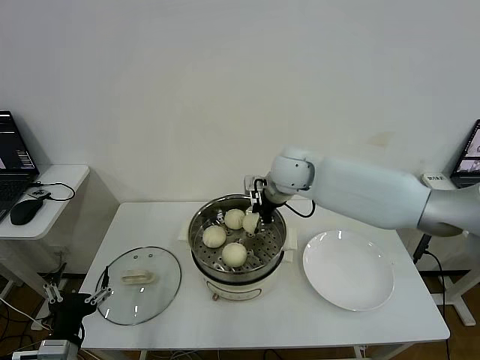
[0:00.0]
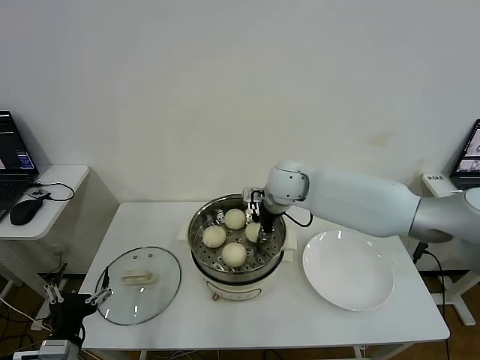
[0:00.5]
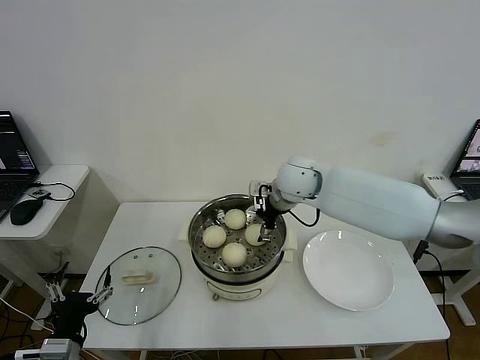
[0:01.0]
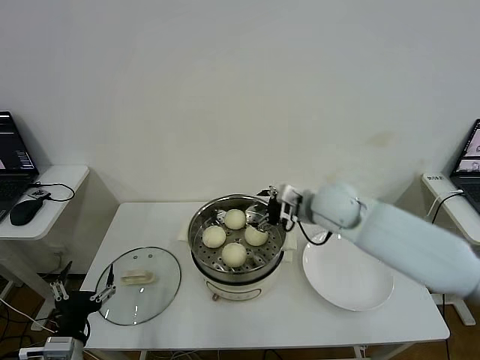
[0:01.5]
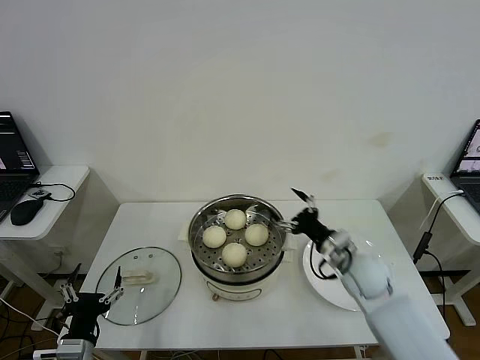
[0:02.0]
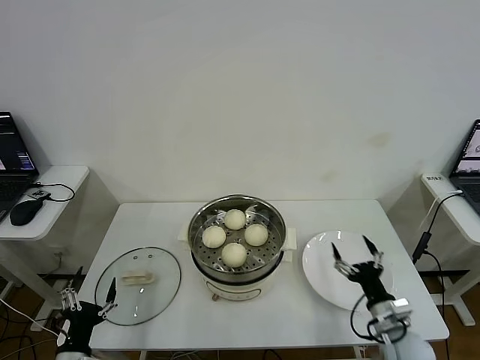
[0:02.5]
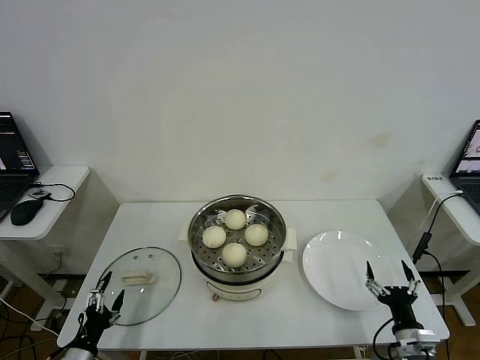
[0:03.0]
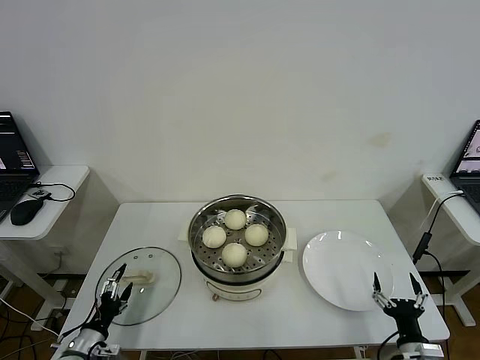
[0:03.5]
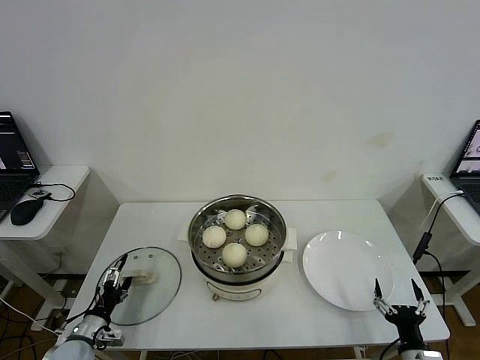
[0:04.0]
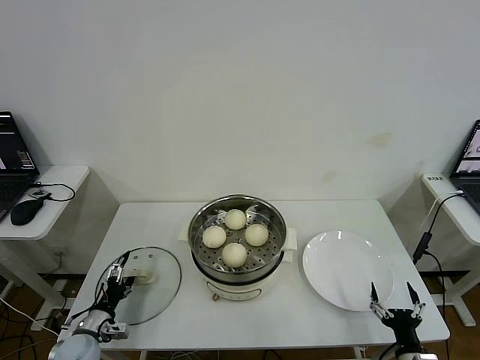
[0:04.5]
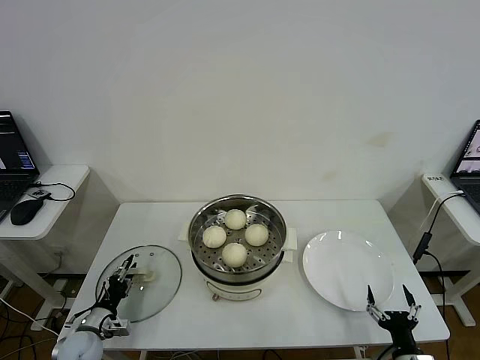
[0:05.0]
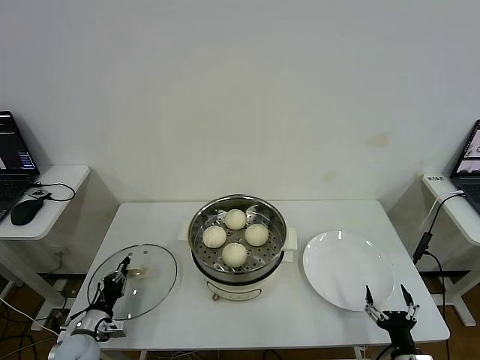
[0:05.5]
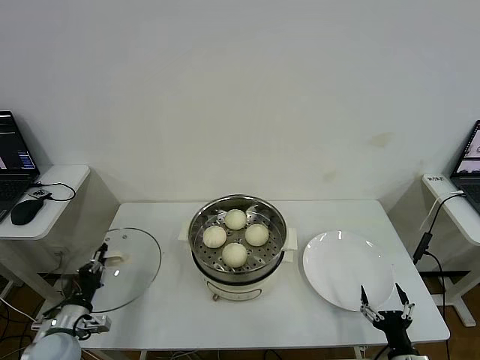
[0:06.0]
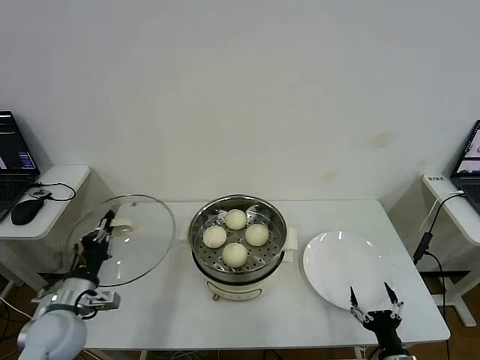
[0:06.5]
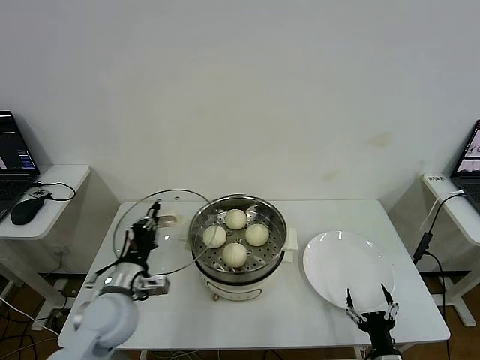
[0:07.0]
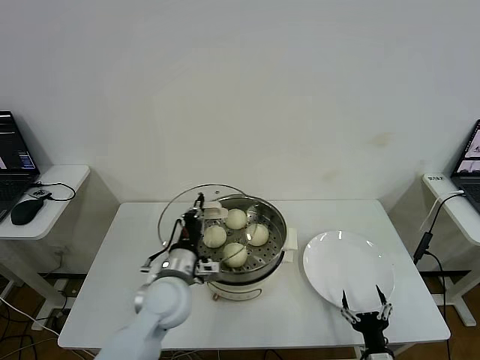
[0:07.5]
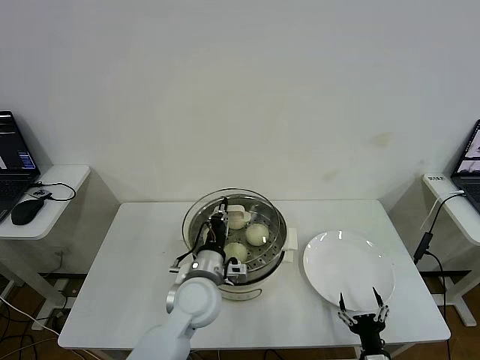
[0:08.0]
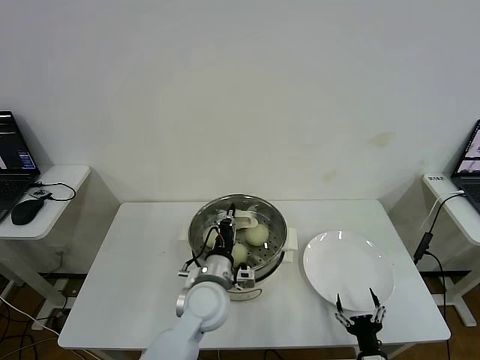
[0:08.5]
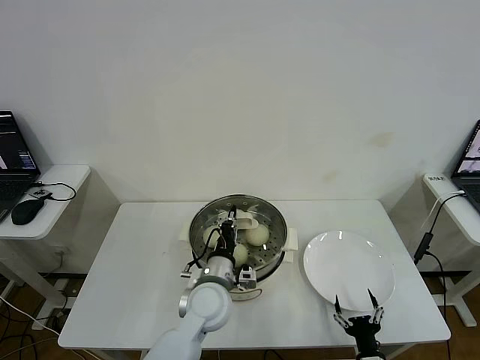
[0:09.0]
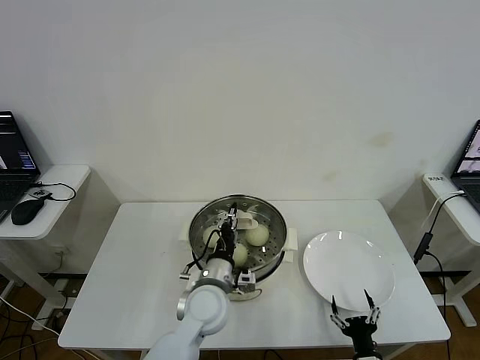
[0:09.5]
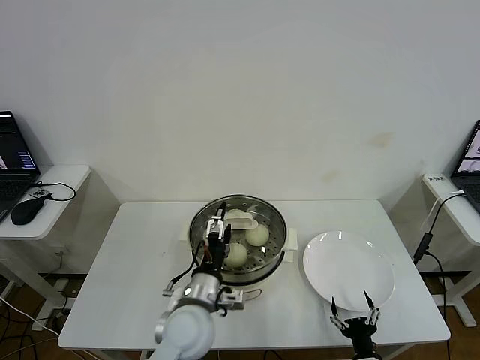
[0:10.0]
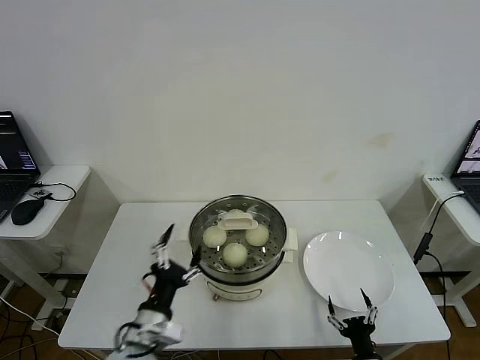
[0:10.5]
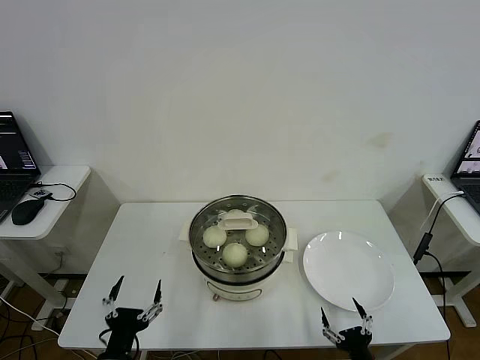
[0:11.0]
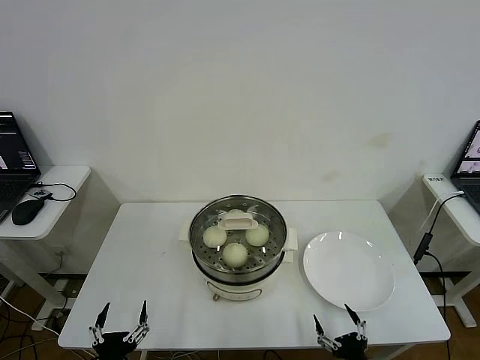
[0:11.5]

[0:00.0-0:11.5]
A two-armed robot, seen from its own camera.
Step, 1.5 to 5.5 s: Grasp the pot lid with left gripper.
Step, 6.0 to 9.5 s: Place the pot lid on the steamer with left gripper.
0.0 to 2.0 s: The right gripper shifts some 25 cm downward, to the right and backward, and opens its fingers.
2.0 to 4.0 s: The right gripper travels backward, downward and to the right by approximately 30 cm. The left gripper heads downward, forward and to the left, covering roughly 15 cm.
4.0 to 6.0 s: The left gripper closes up.
6.0 to 7.5 s: The right gripper shifts by some 5 cm. Meanwhile the left gripper goes roughly 30 cm to the right and upward.
7.5 to 9.5 s: The left gripper goes approximately 10 cm to the right.
9.5 to 11.5 s: The left gripper travels backward and to the left by about 30 cm, and opens. The right gripper moves approximately 5 cm.

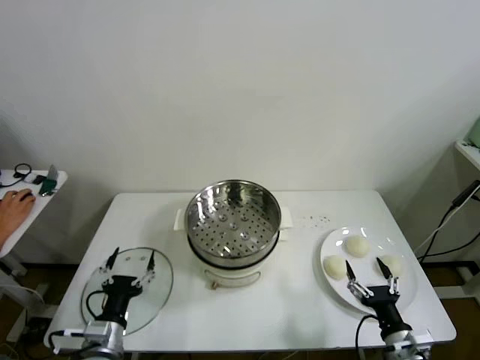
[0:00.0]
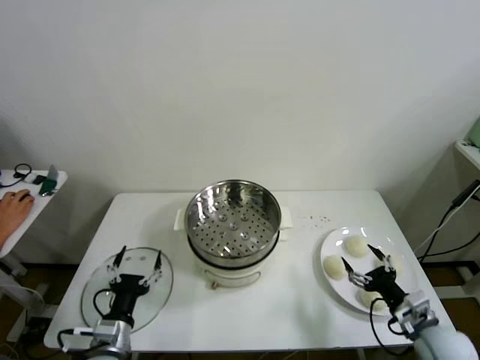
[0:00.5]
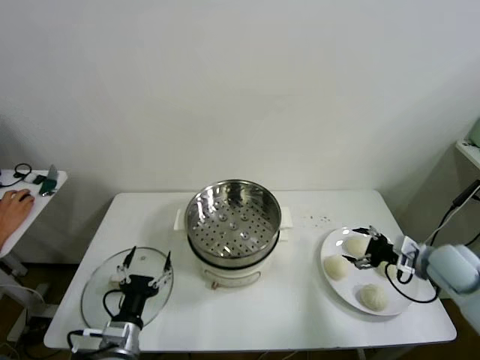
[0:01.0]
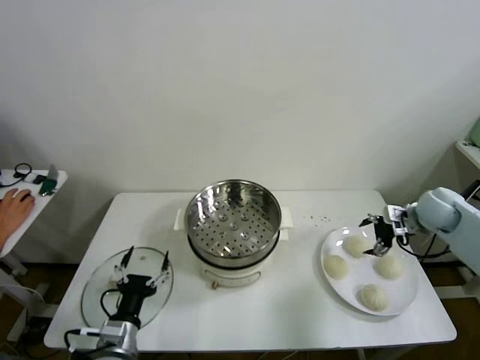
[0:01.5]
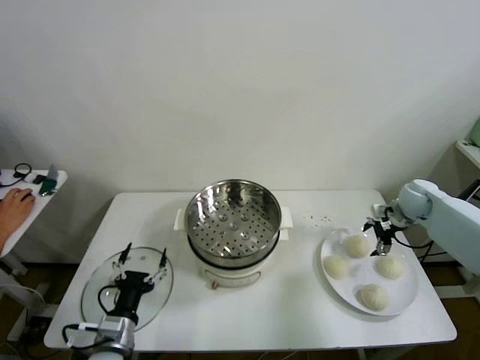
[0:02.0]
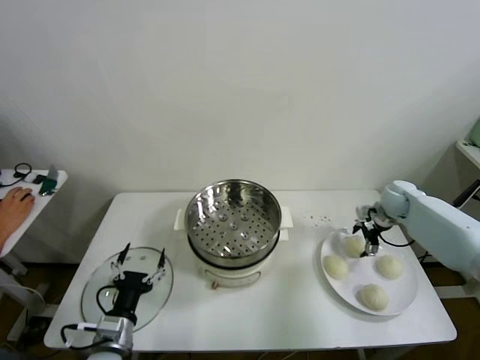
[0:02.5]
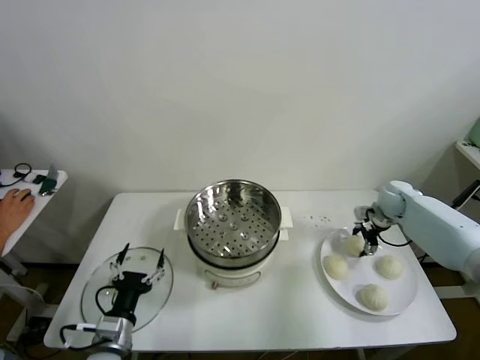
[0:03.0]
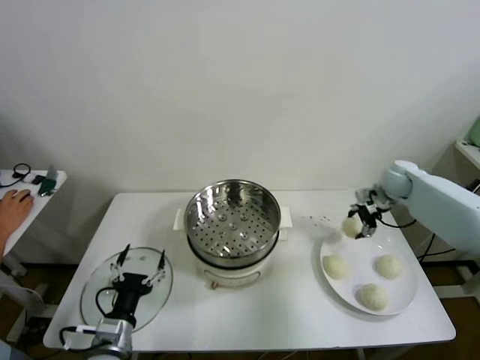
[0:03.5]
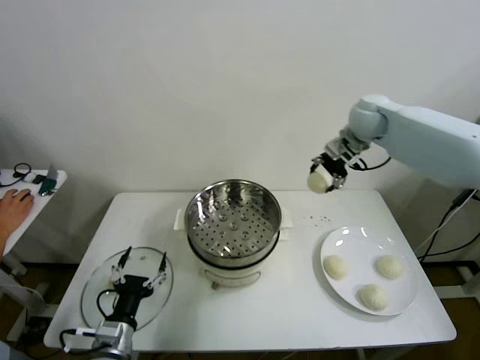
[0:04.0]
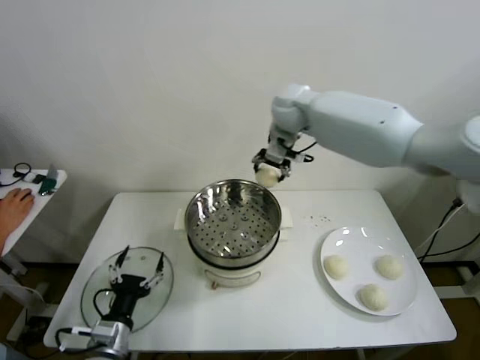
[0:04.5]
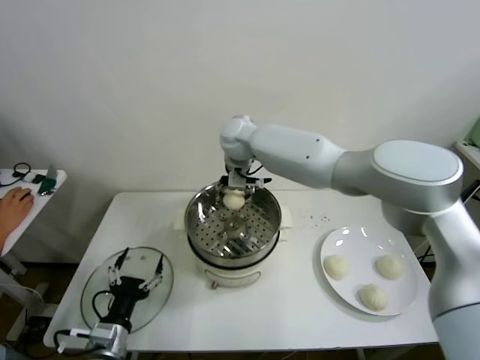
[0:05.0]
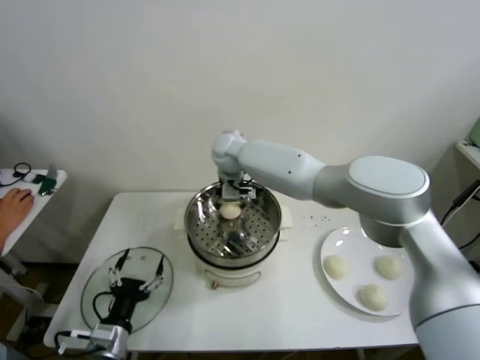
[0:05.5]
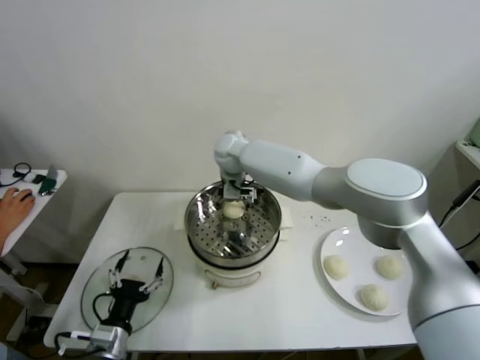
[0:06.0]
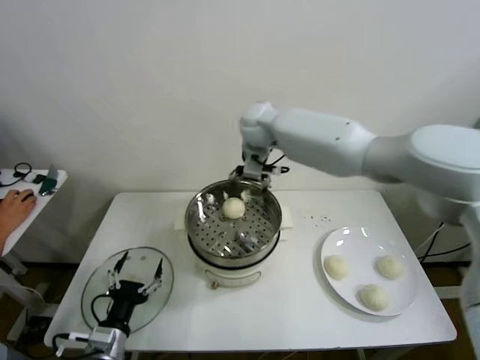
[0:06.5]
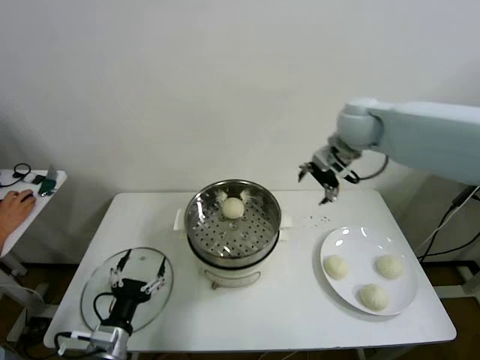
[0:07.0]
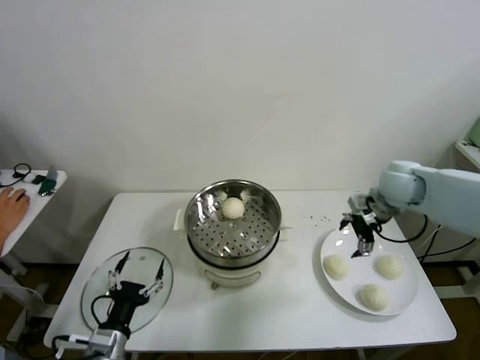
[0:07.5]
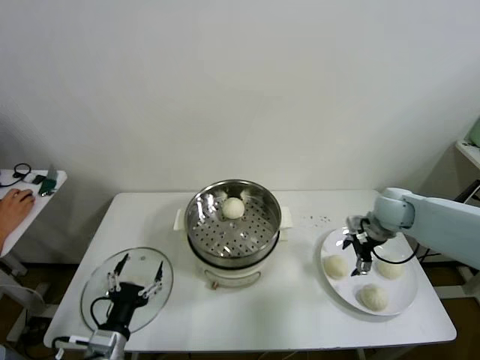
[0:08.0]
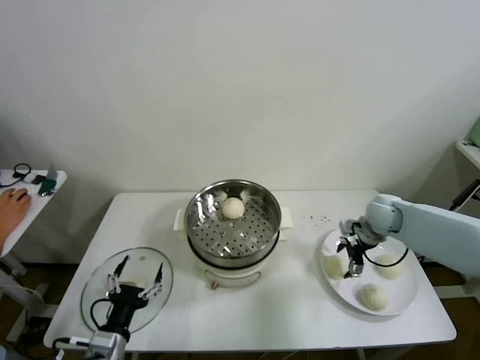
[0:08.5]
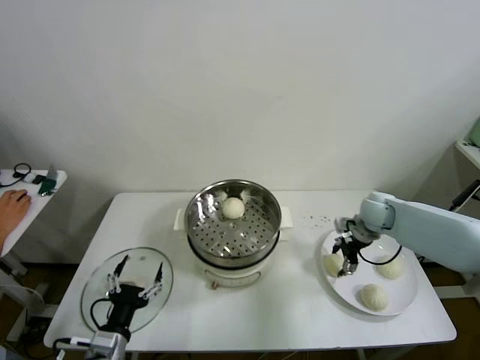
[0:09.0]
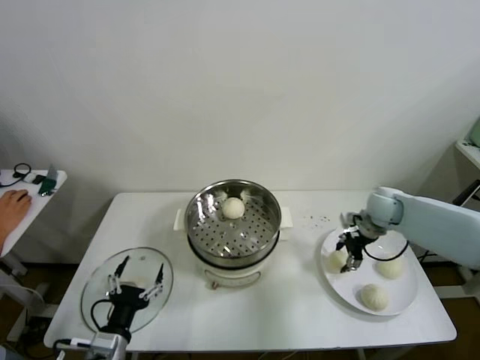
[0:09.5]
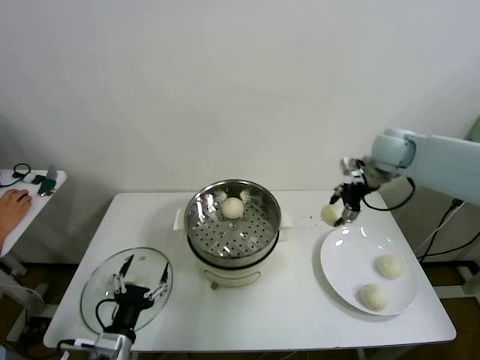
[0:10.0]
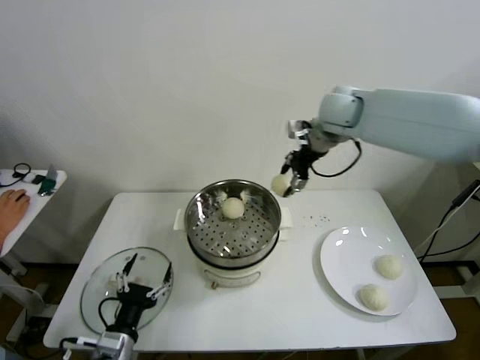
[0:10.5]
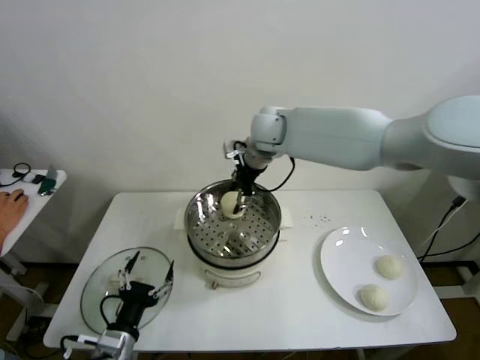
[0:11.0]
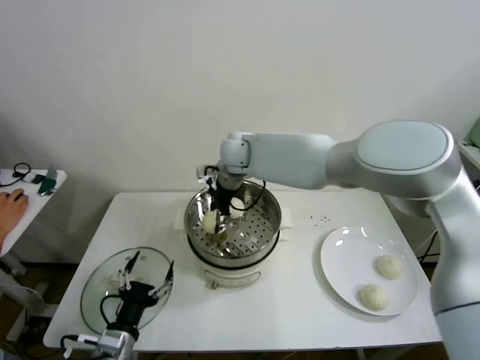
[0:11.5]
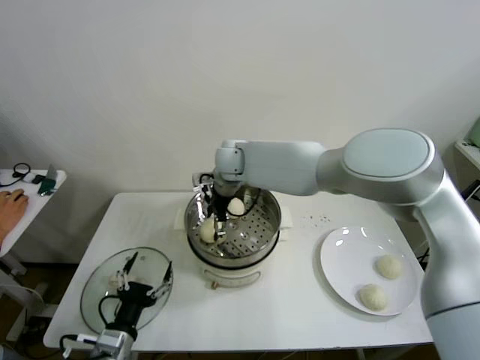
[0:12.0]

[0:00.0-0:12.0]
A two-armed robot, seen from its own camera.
Step, 0.0 to 3.0 s: Grasp the baozi in the plate with right gripper.
Step, 3.5 to 5.5 s: Place the baozi on the steamer with right gripper.
Step, 6.0 to 9.0 s: Grasp the baozi in the plate with right gripper.
Step, 9.5 to 11.5 s: Place the baozi on the steamer with right gripper.
2.0 to 4.0 s: The right gripper goes some 25 cm upward and to the left, and closes its fingers.
4.0 to 6.0 s: The right gripper goes approximately 30 cm to the left, and opens up.
6.0 to 8.0 s: The right gripper moves to the right, approximately 40 cm.
8.0 to 10.0 s: The right gripper heads upward and forward, covering approximately 15 cm, and closes.
10.0 to 12.0 s: The right gripper is displaced to the left by some 35 cm, and opens.

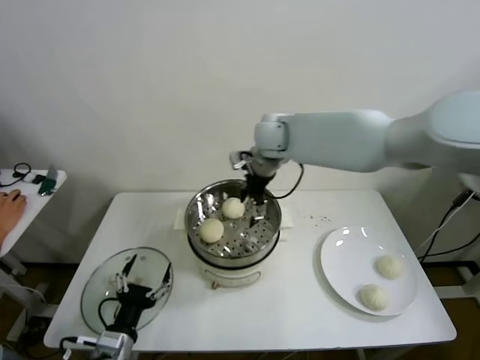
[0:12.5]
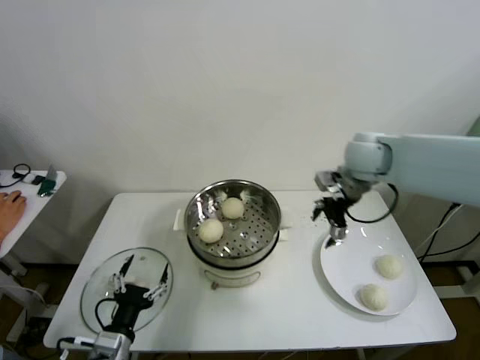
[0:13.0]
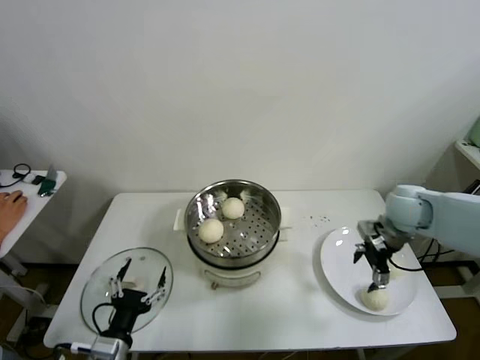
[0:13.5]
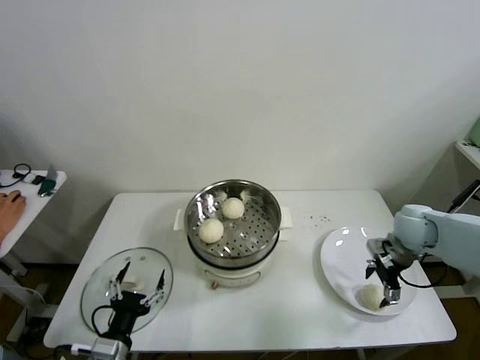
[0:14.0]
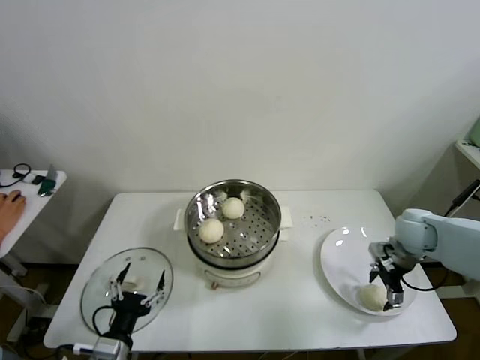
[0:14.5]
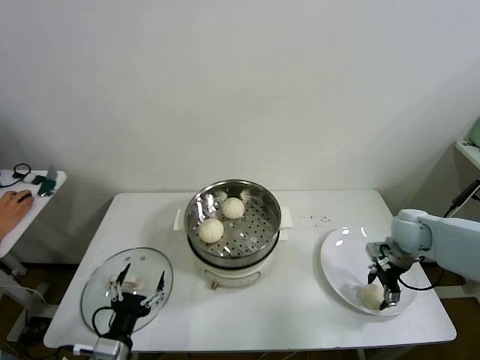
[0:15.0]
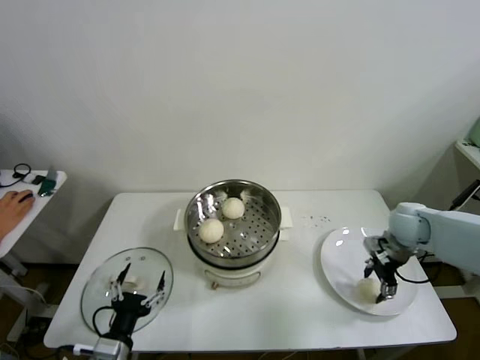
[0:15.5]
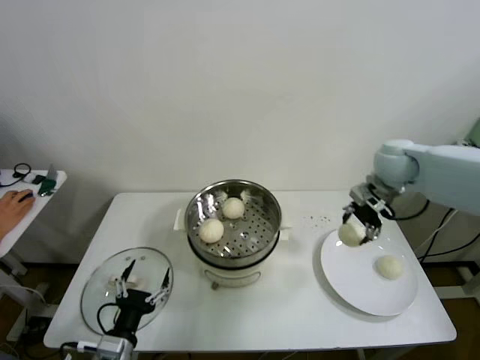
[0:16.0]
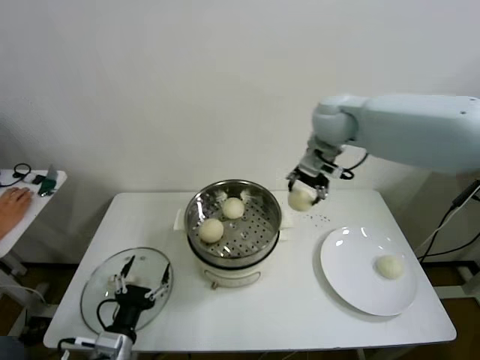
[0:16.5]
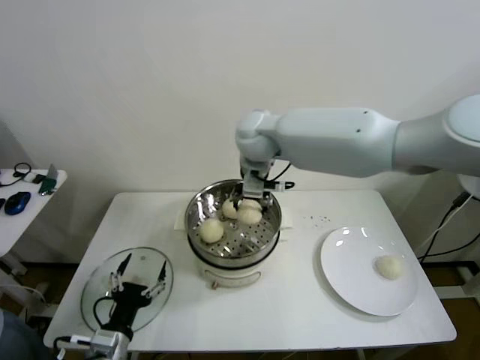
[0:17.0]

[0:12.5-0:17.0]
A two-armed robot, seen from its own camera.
Step, 12.5 to 15.0 s: Grasp the baozi in the plate with right gripper.
12.5 to 14.5 s: The right gripper goes about 40 cm to the right and downward.
14.5 to 17.0 s: The right gripper heads to the left and upward, covering about 40 cm, and closes its fingers.
